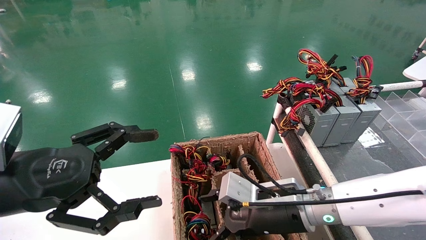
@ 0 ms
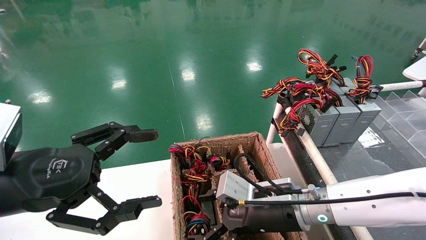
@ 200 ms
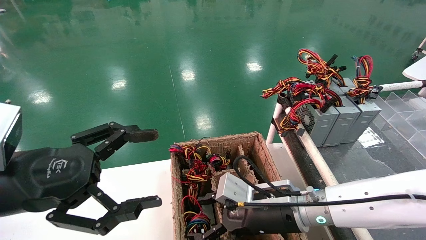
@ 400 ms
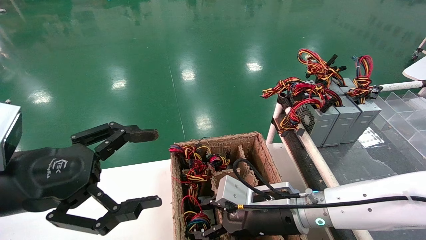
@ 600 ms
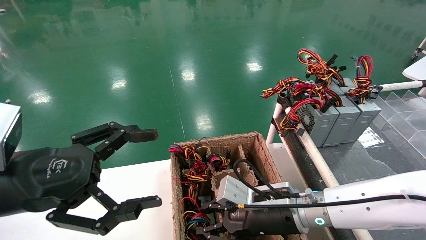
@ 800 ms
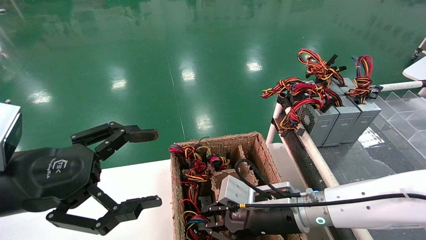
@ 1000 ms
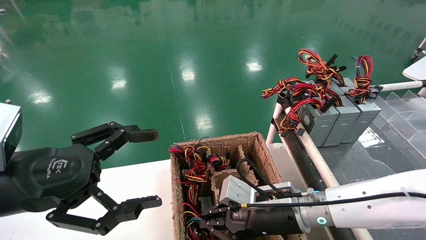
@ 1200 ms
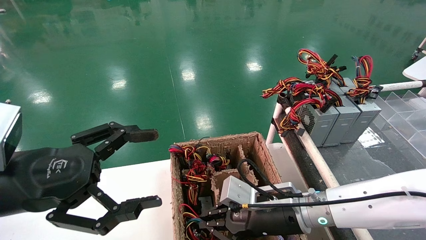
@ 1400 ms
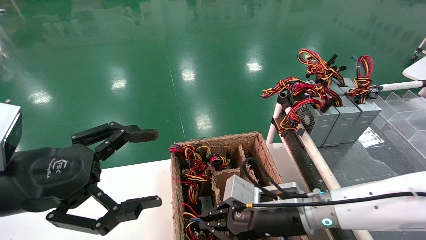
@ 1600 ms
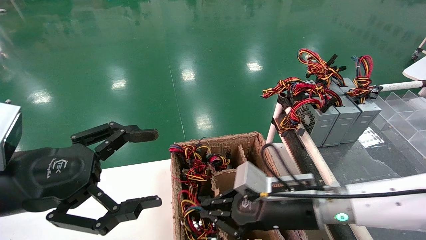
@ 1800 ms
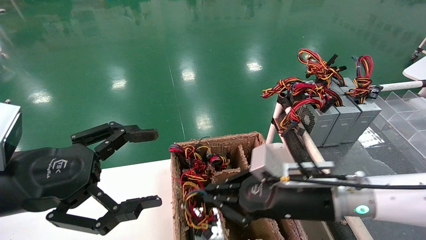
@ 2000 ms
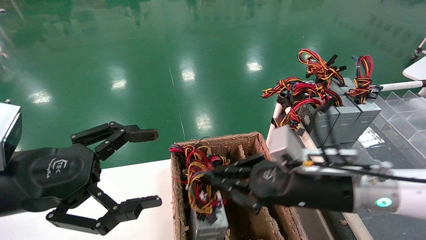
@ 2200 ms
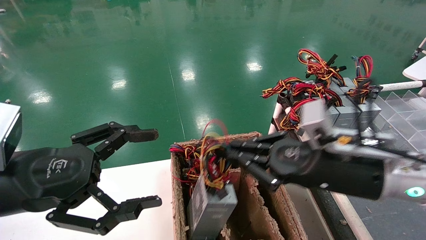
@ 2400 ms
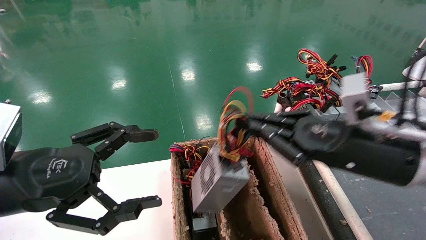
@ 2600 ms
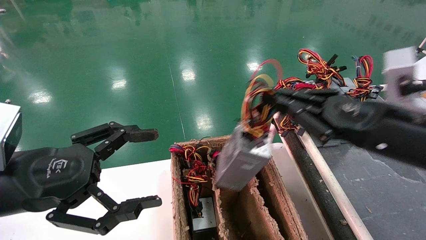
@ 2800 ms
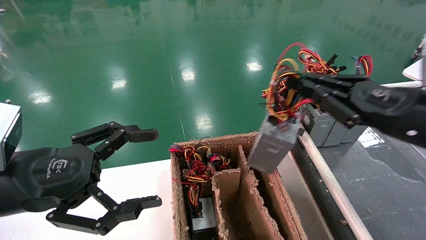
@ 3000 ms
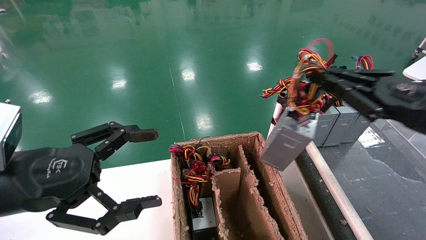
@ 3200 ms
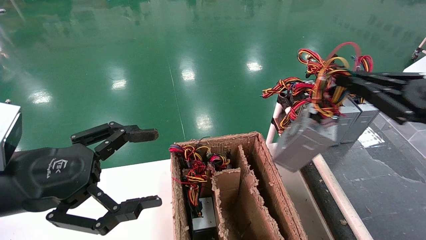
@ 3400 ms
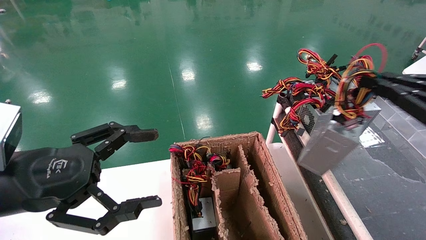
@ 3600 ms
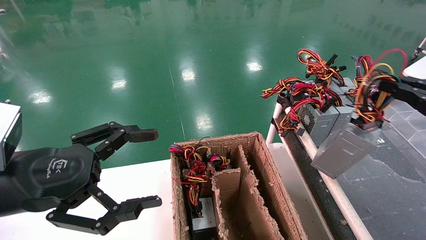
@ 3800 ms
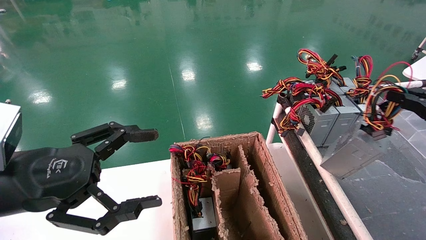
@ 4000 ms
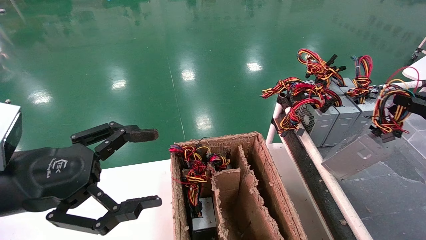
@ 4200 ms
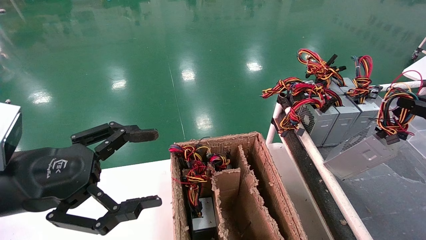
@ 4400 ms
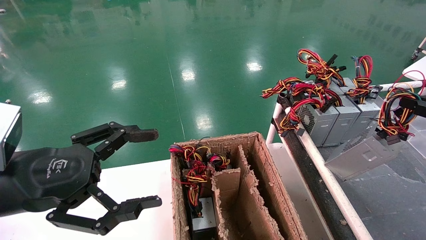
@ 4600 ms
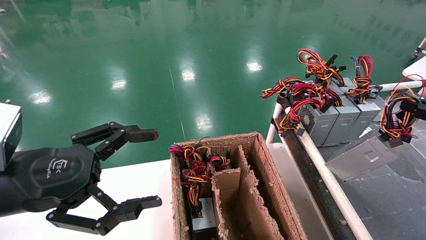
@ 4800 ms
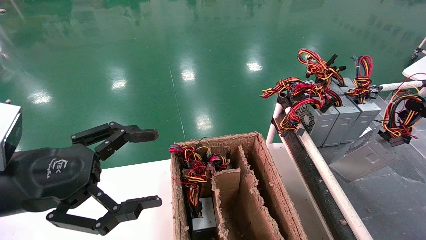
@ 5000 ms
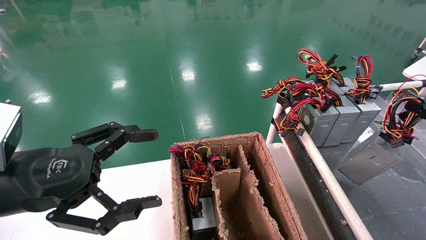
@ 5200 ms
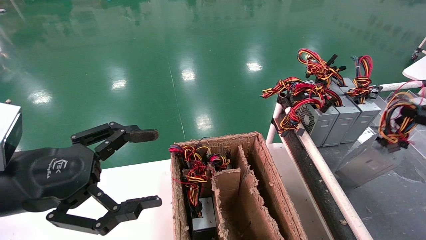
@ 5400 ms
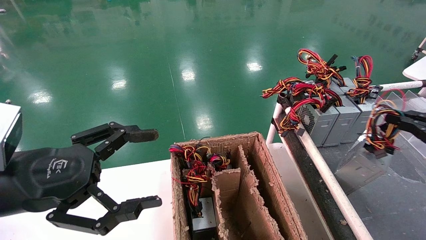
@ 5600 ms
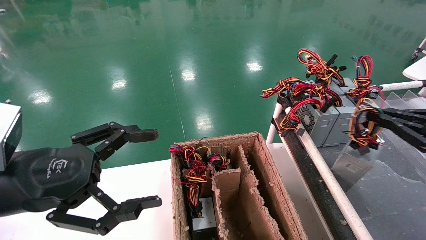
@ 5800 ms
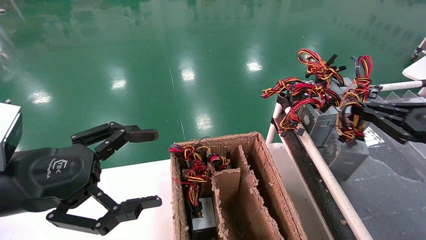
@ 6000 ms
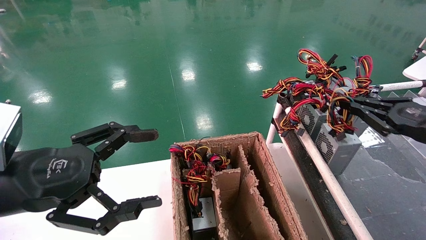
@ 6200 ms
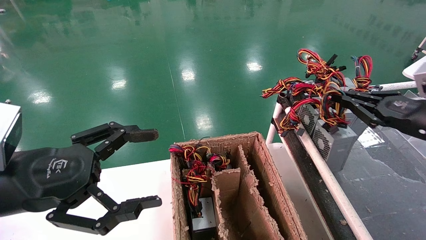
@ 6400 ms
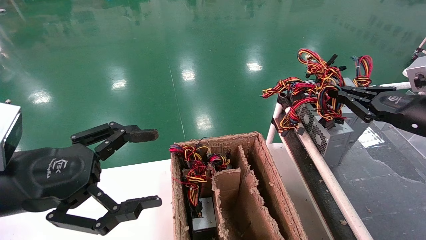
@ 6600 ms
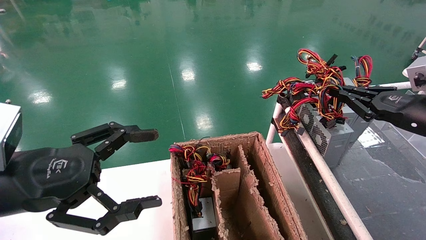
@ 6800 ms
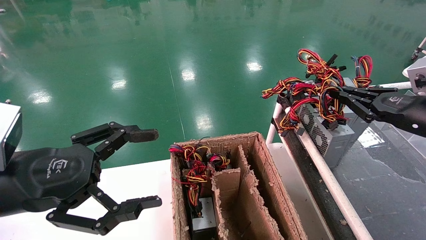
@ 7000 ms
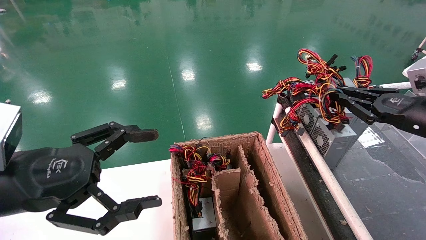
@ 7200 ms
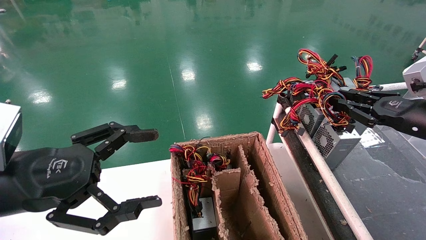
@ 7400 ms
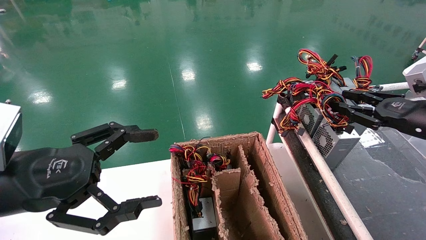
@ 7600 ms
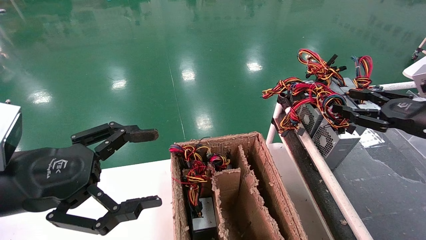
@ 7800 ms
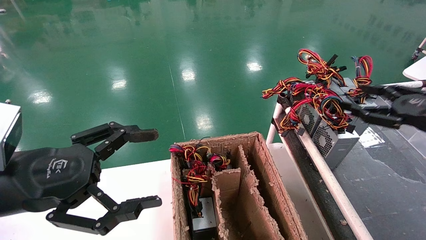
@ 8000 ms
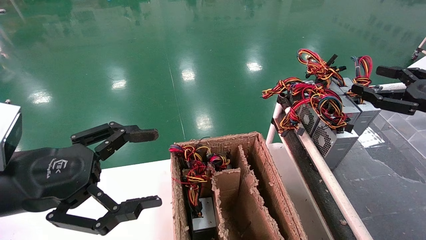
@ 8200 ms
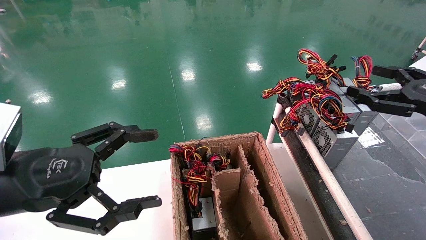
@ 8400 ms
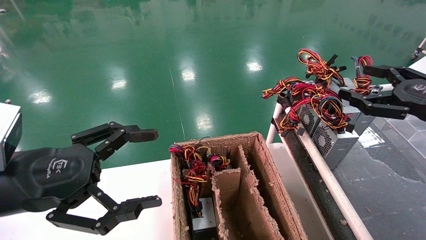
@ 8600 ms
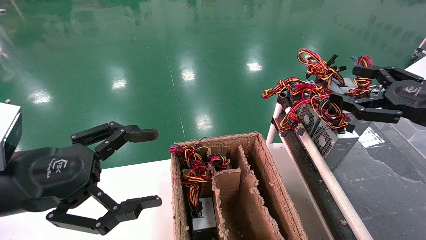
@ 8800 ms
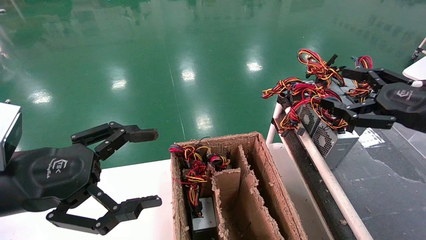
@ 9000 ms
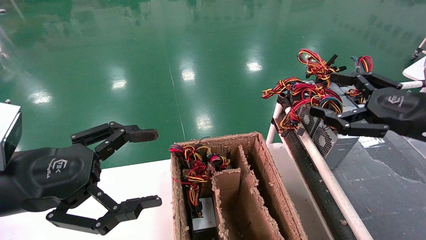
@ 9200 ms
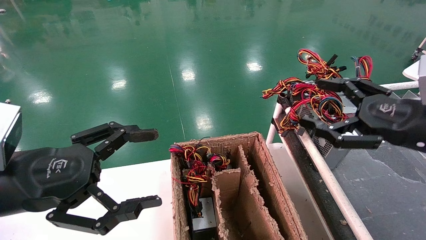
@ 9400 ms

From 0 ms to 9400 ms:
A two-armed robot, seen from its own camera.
Step, from 1600 ms to 7200 ms: Place the power supply on the operating table.
From 0 ms to 1600 ms: The right gripper closes its fingers.
From 1600 ms to 3200 ms: The right gripper moves to the right and upward, some 25 cm.
From 3200 ms to 4800 ms: The right gripper travels to the right by roughly 15 cm.
From 4800 ms to 6200 ms: The right gripper travels forward and to the left by roughly 10 cm.
From 6200 ms to 7800 ms: The right gripper opens.
From 7800 ms to 9400 ms: The right gripper travels to the left and backward by some 10 cm, and opens up.
